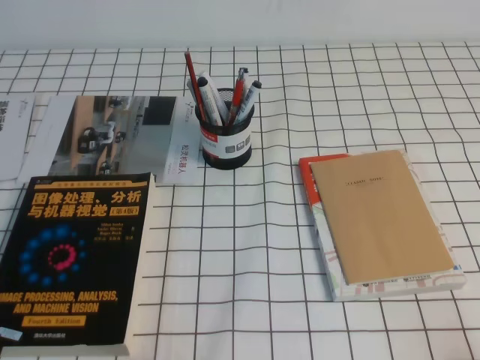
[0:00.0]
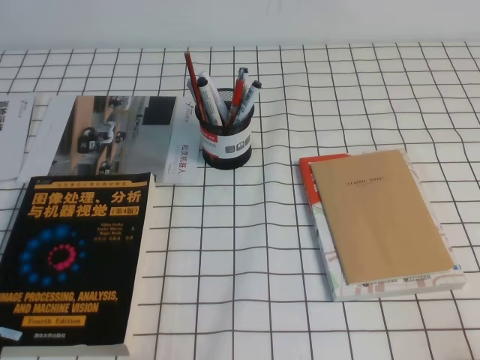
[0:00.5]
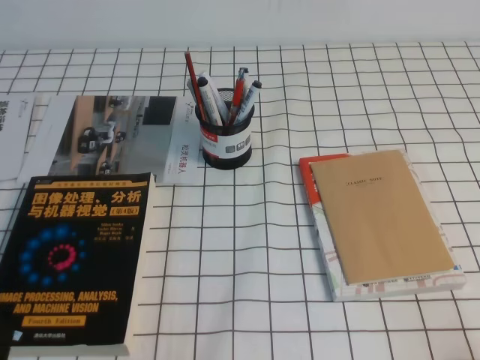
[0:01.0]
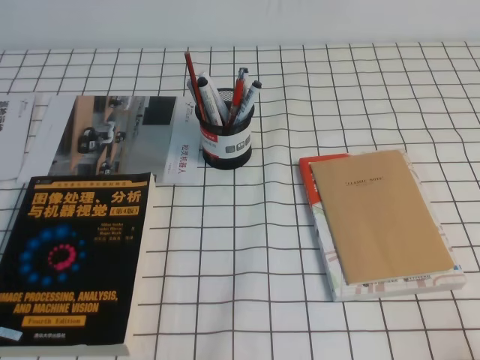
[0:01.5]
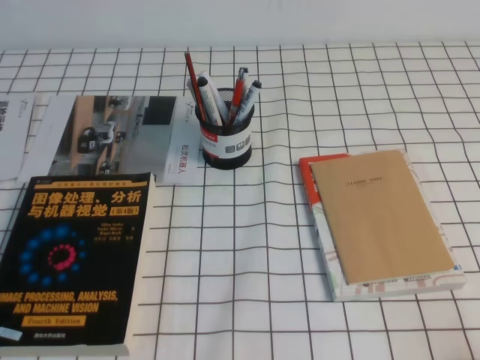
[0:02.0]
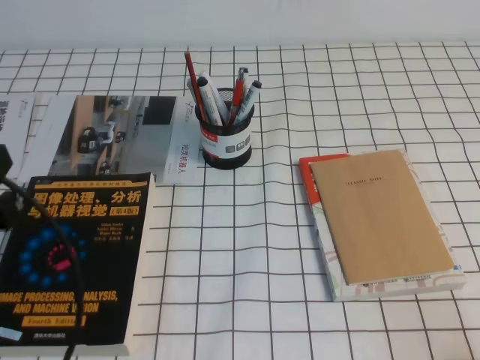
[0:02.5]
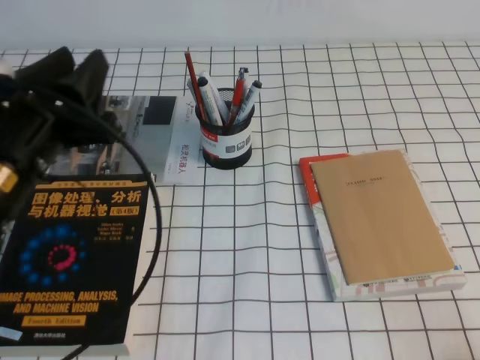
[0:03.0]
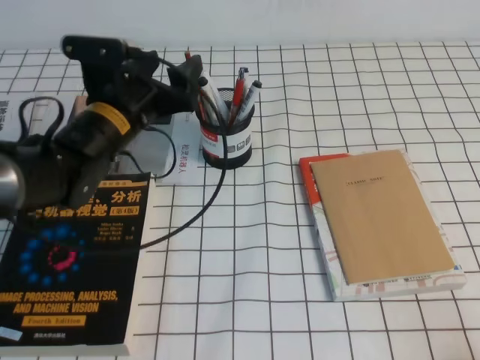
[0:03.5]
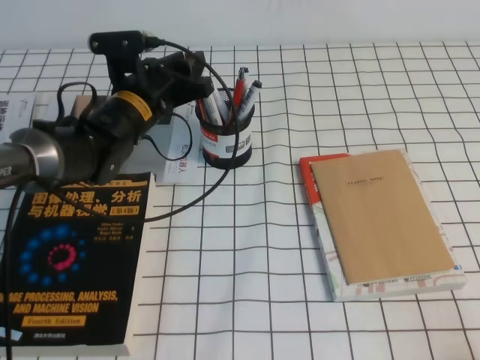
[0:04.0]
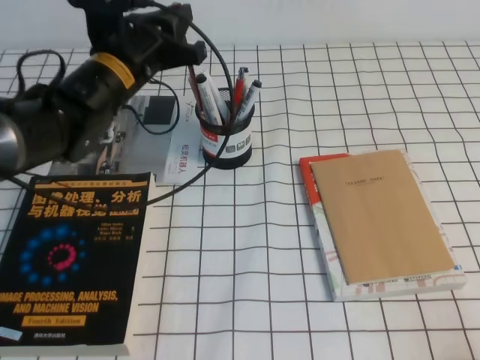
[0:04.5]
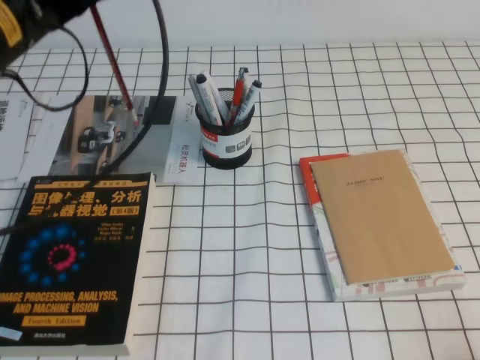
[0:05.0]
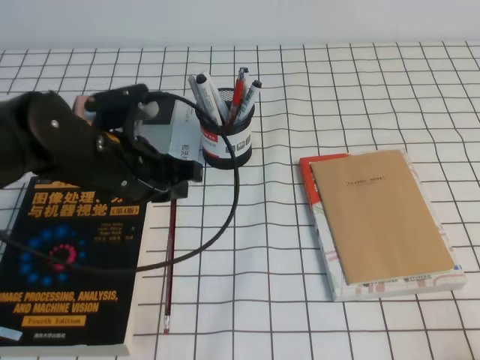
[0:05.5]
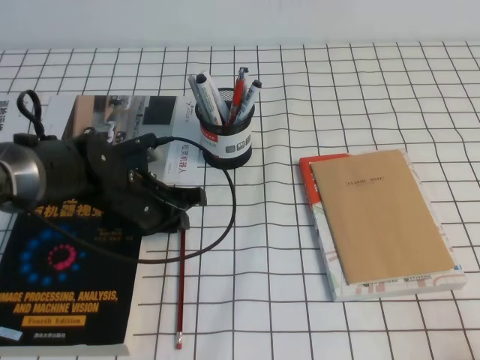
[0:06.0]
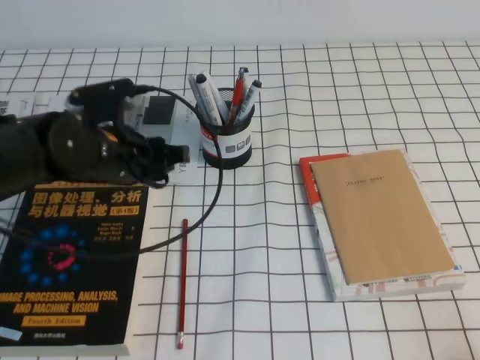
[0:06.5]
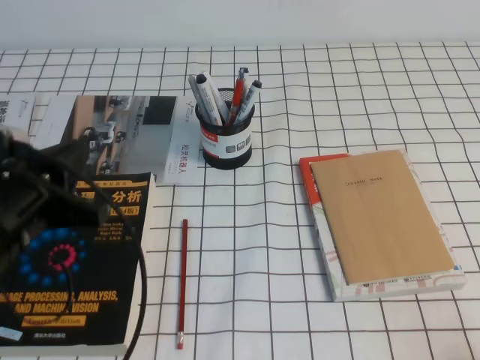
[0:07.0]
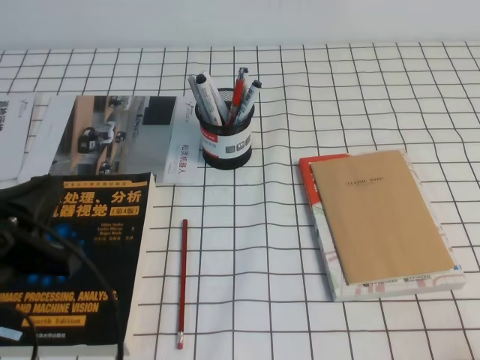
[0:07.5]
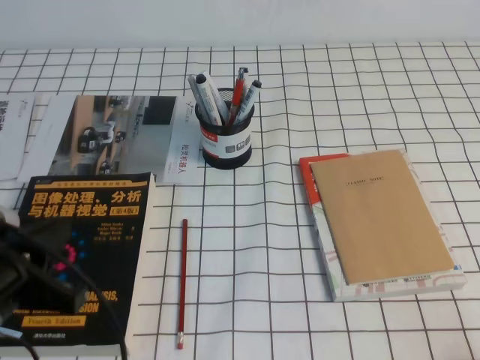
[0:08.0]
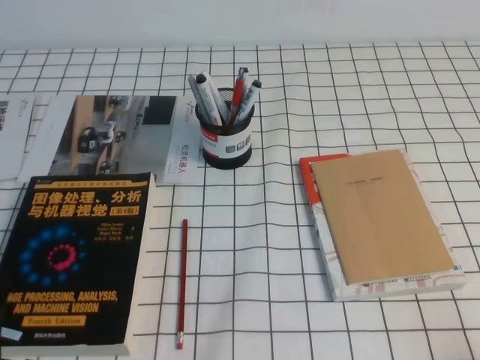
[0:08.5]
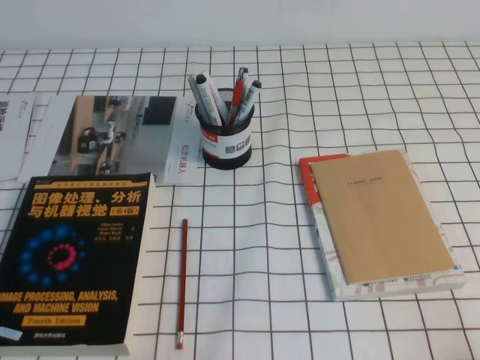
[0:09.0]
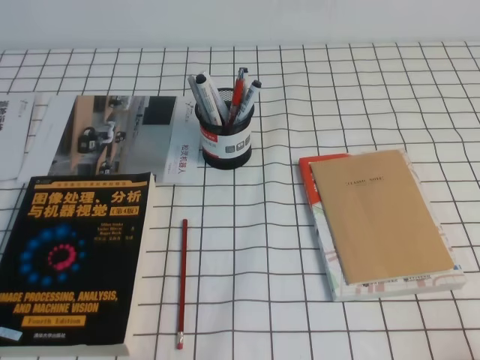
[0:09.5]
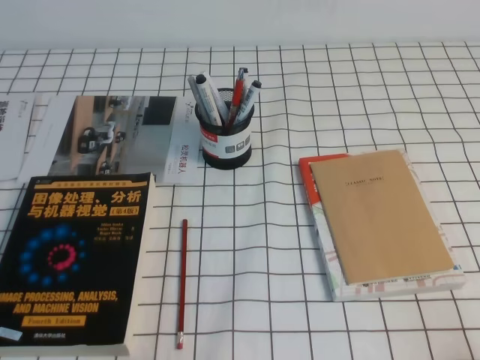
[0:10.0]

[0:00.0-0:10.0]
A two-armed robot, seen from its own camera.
Step, 0:00.0 to 0:10.0: Pick up the pen from the pen holder.
0:02.0 to 0:04.0: The left gripper travels forward and to the right by about 40 cm, and opens its fingers.
0:04.0 to 0:06.0: The left gripper goes some 10 cm backward, and goes upward and returns, roughly 15 cm each way.
0:06.0 to 0:08.0: The left gripper travels backward, to the left and upward by about 25 cm.
0:08.0 to 0:10.0: The left gripper travels downward, backward and to the left by approximately 15 cm.

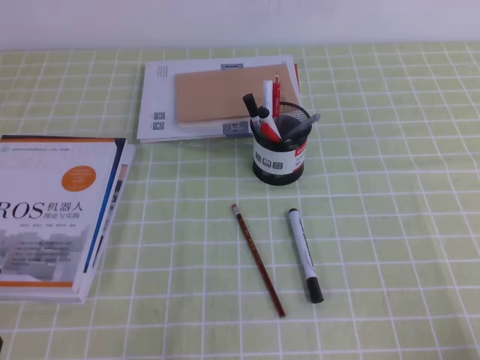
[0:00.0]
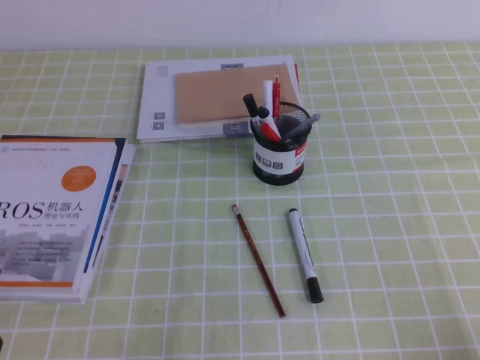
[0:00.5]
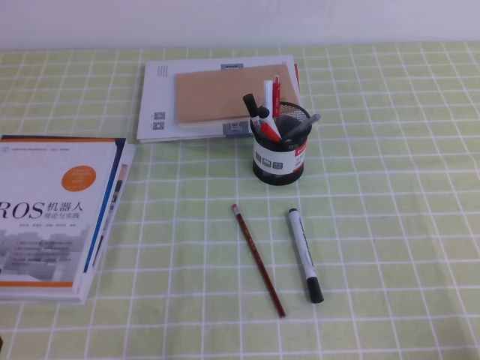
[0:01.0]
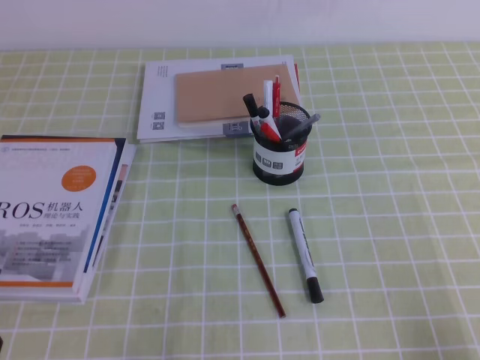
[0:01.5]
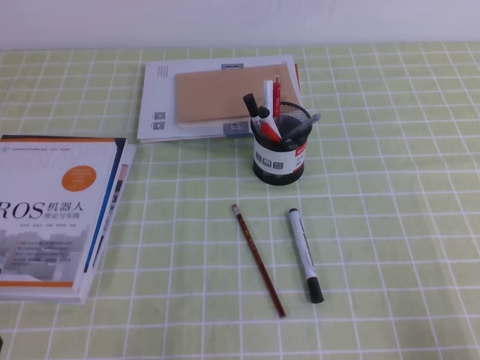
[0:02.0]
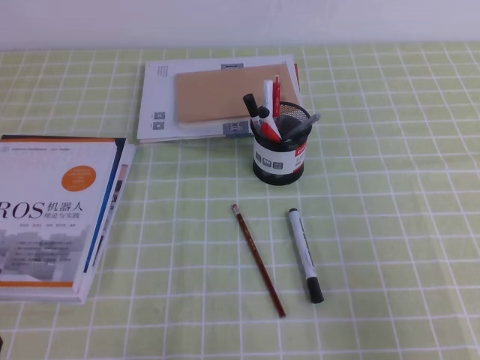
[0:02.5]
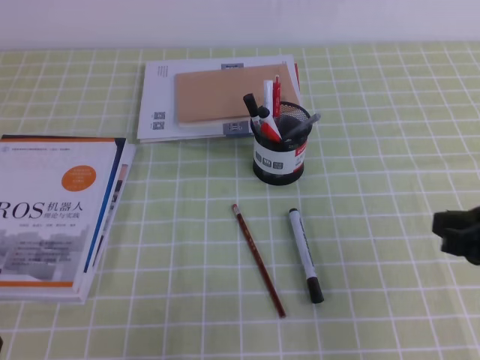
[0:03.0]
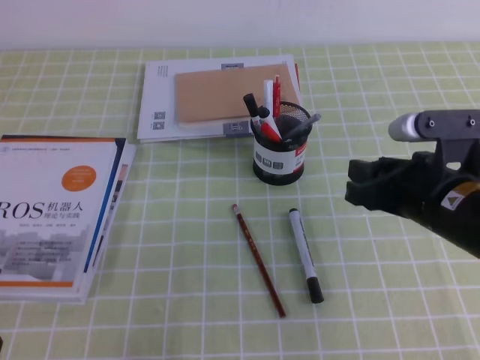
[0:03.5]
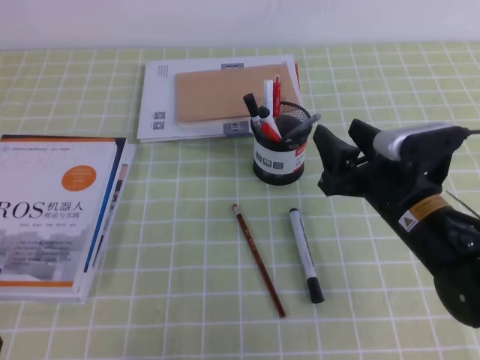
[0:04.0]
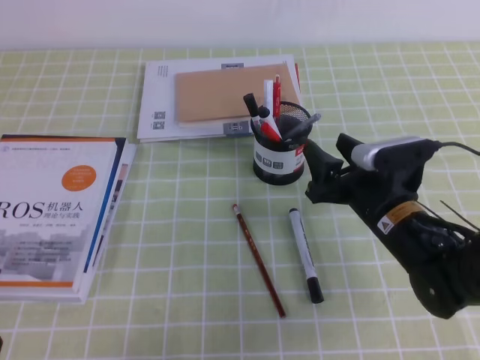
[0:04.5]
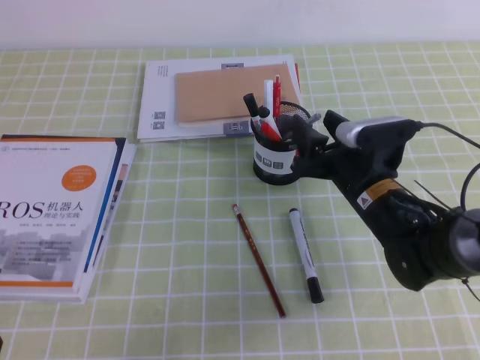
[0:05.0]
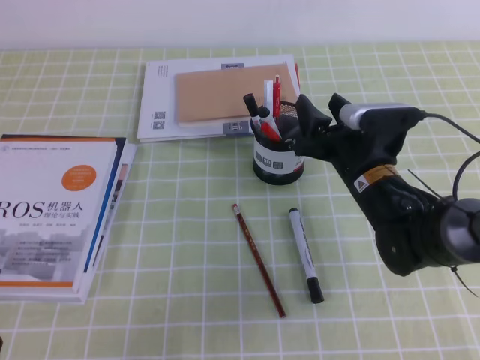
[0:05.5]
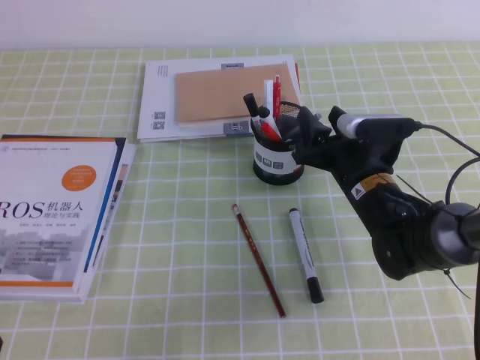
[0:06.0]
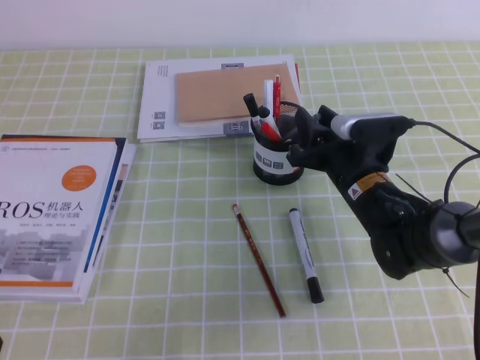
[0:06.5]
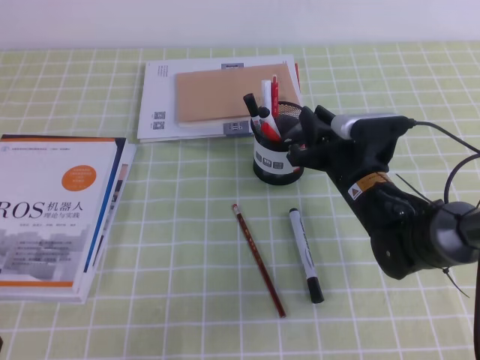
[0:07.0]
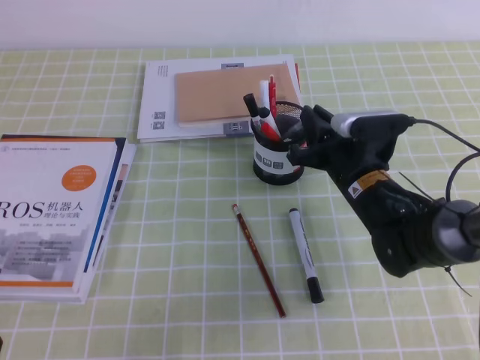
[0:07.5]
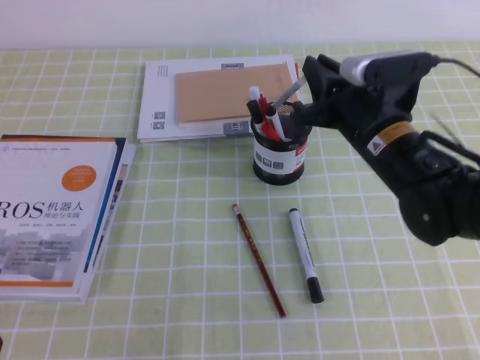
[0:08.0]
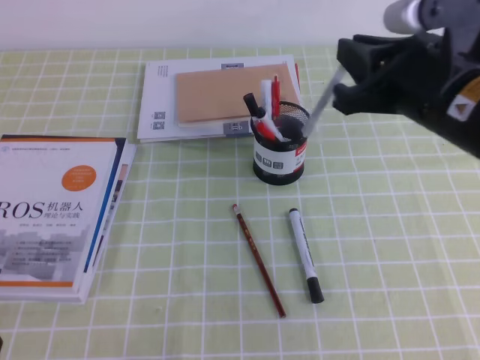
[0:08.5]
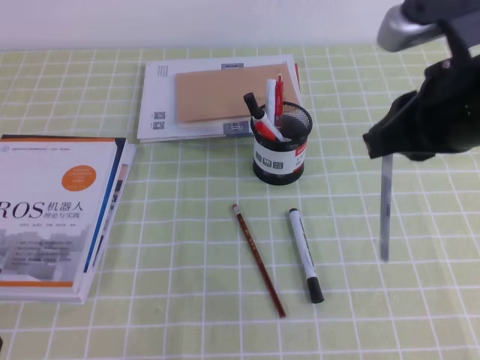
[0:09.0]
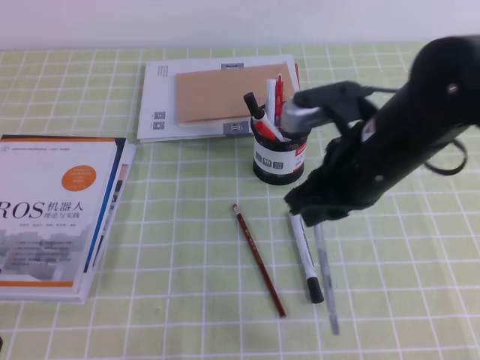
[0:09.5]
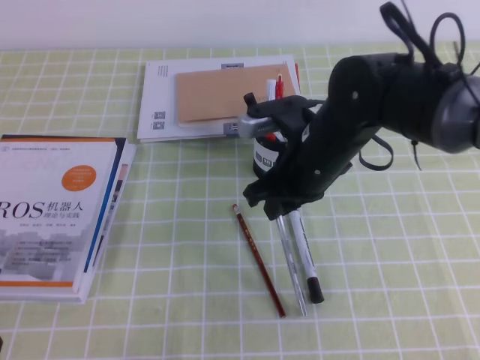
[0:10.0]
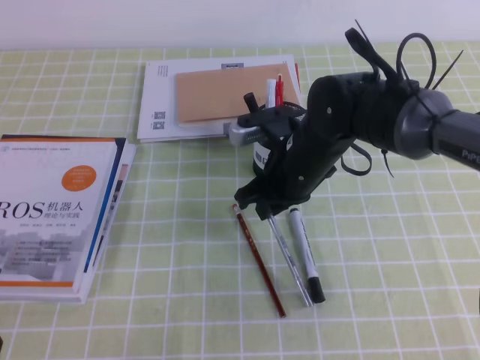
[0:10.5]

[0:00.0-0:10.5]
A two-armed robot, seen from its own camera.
0:02.0 to 0:04.0: The right gripper travels forward and to the left by some 25 cm, and opens.
0:04.0 to 0:06.5: The right gripper goes some 10 cm forward, and closes its fingers.
0:06.5 to 0:08.5: The right gripper shifts approximately 20 cm upward and backward, and closes.
0:08.5 to 0:10.5: The right gripper heads downward, to the left and forward, covering about 20 cm.

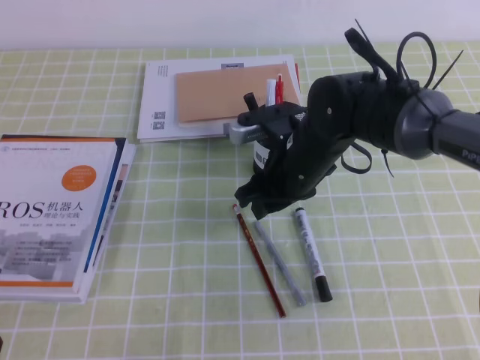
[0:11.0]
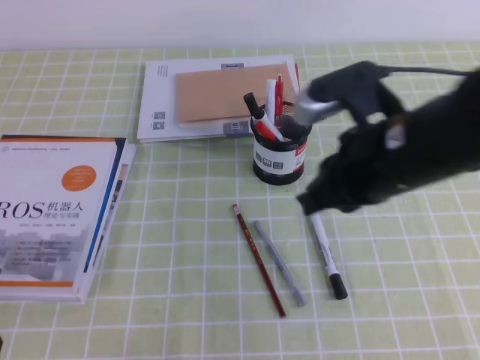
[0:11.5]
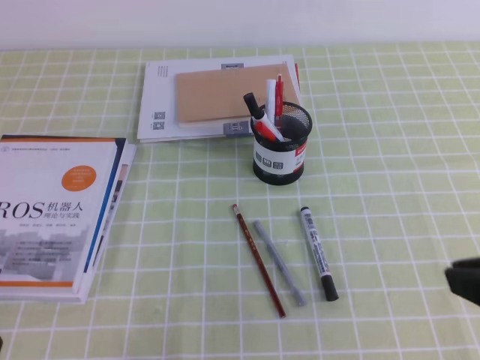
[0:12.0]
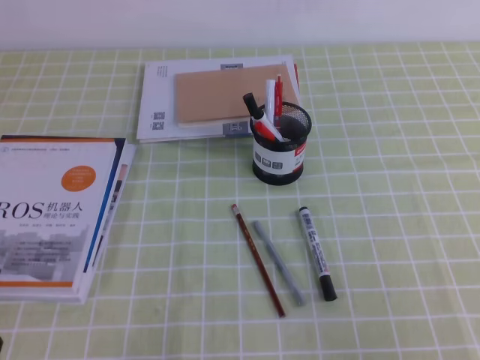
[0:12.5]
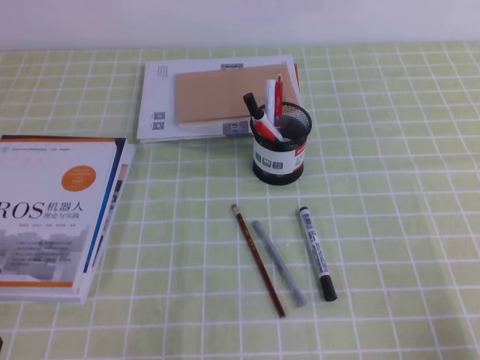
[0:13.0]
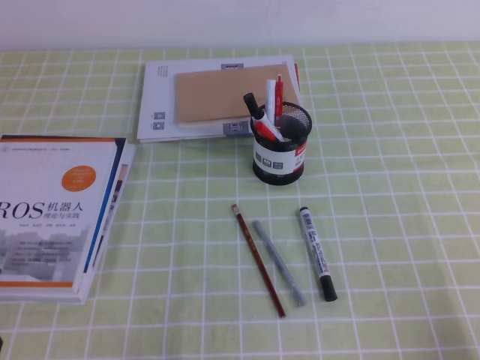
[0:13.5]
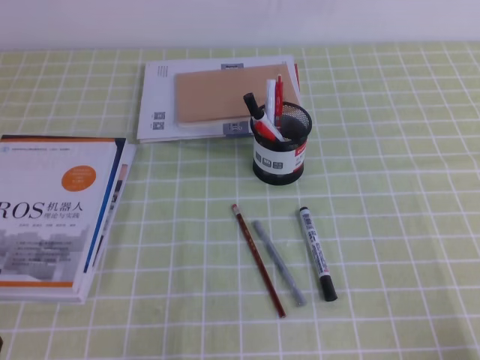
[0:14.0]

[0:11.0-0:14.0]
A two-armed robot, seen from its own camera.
Step, 0:11.0 to 0:14.0: Pick up the pen from the pen holder.
0:11.0 to 0:12.5: The right gripper is displaced backward and to the right by some 35 cm, and closes up.
0:12.5 to 0:14.0: The right gripper is displaced downward by approximately 10 cm.

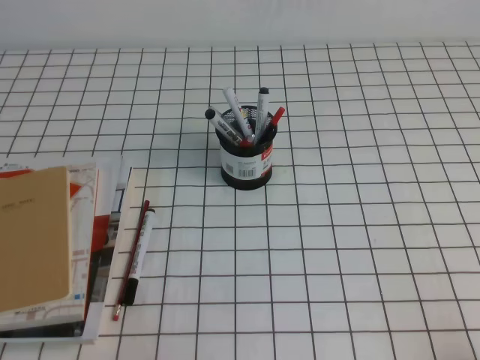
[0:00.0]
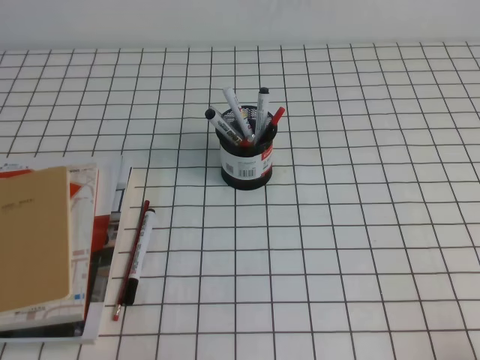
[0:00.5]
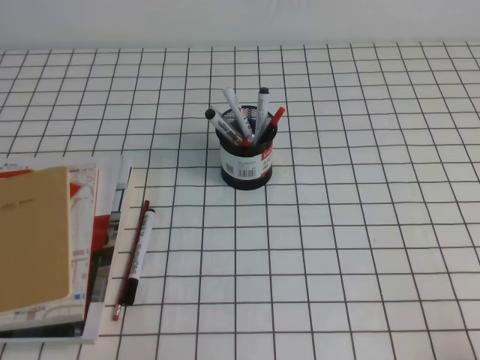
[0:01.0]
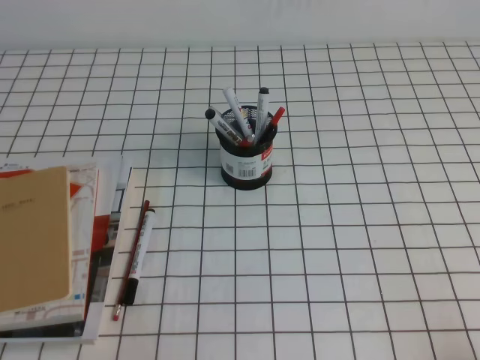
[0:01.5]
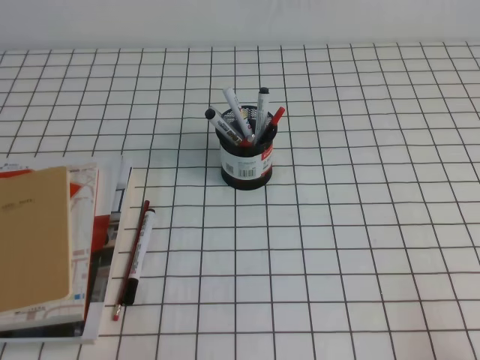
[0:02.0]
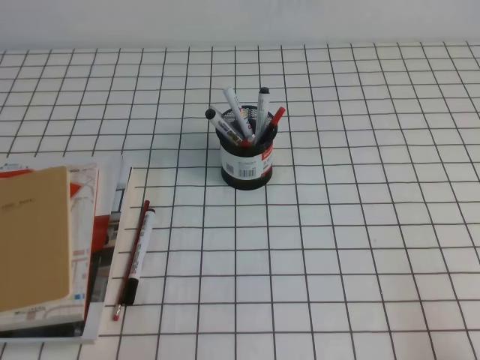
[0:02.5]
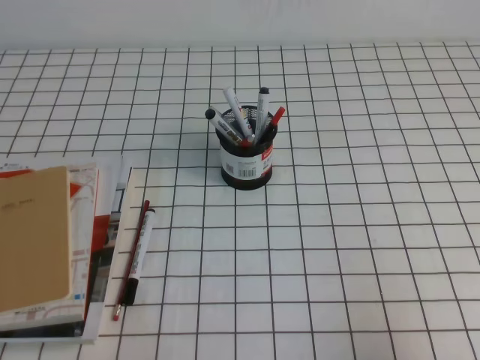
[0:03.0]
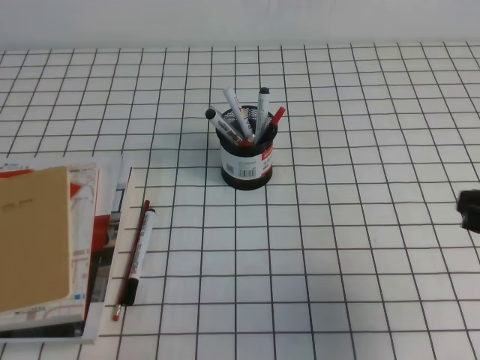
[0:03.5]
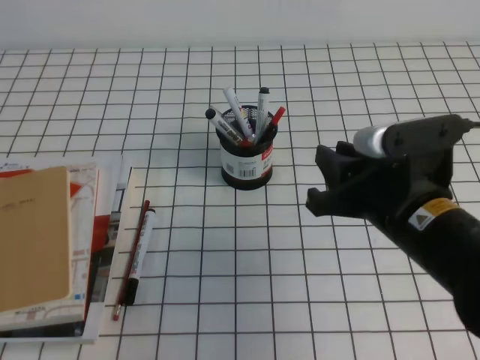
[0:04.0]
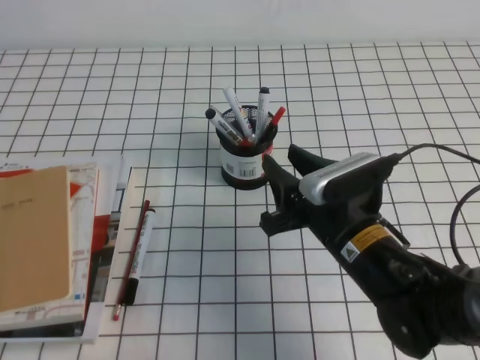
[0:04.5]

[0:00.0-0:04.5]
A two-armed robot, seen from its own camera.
0:02.0 to 0:04.5: The right gripper goes some 30 cm to the left and forward, and opens its fingers.
